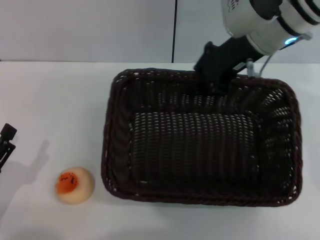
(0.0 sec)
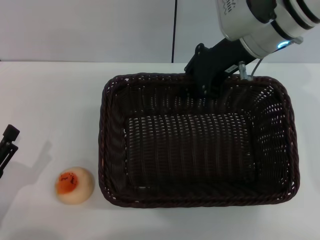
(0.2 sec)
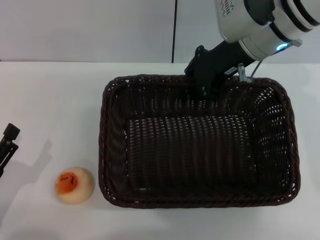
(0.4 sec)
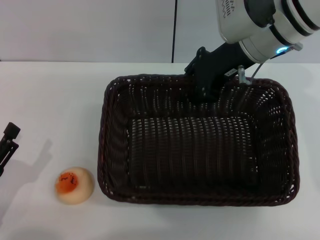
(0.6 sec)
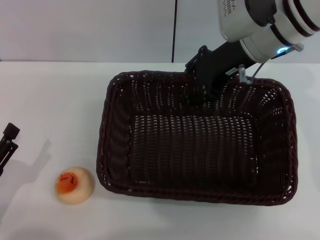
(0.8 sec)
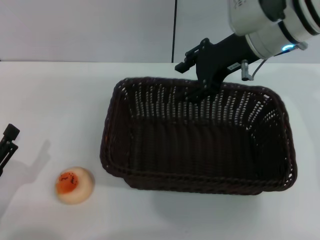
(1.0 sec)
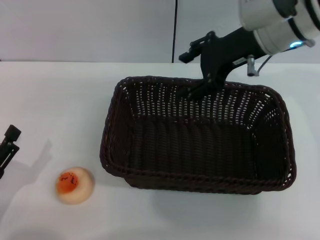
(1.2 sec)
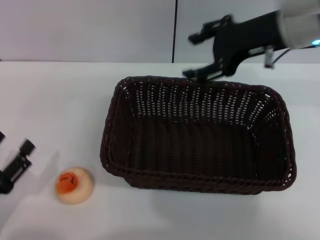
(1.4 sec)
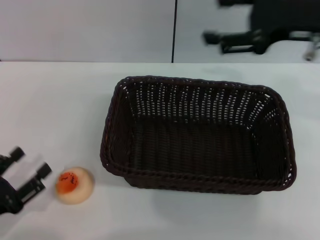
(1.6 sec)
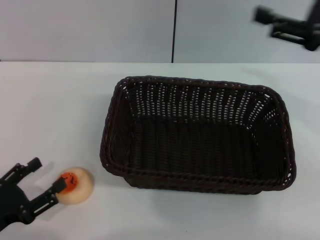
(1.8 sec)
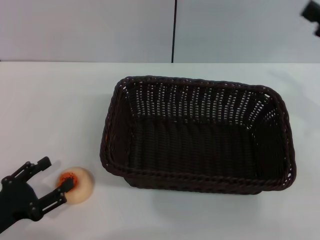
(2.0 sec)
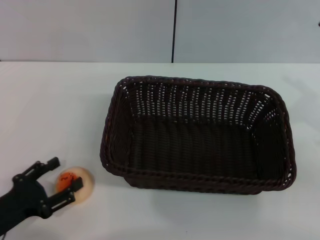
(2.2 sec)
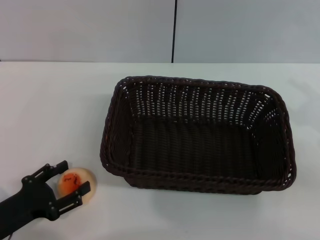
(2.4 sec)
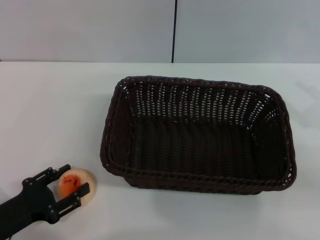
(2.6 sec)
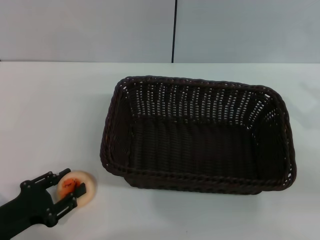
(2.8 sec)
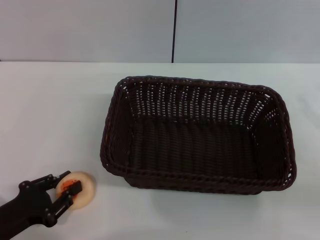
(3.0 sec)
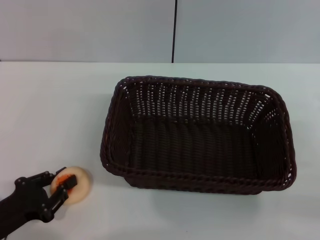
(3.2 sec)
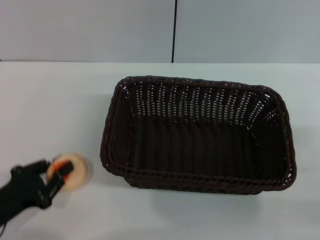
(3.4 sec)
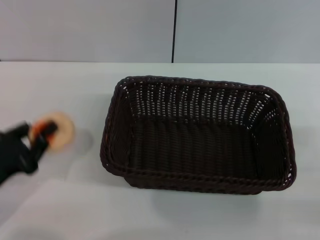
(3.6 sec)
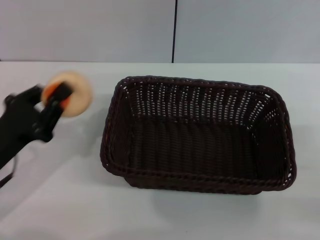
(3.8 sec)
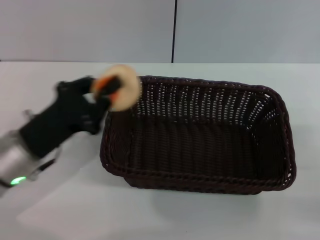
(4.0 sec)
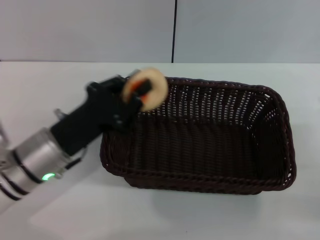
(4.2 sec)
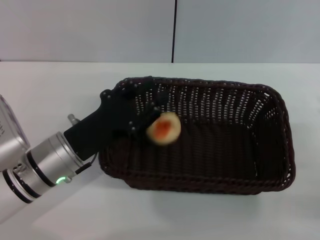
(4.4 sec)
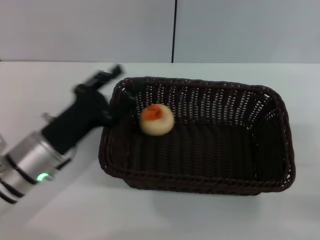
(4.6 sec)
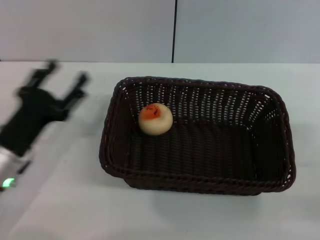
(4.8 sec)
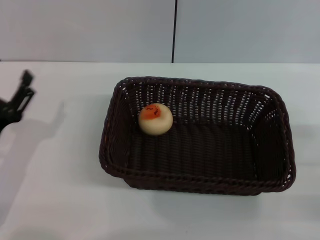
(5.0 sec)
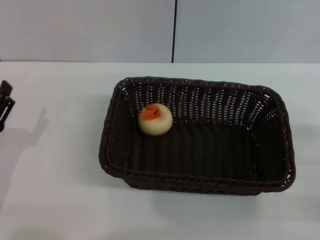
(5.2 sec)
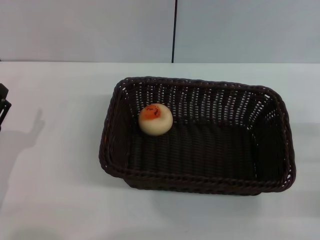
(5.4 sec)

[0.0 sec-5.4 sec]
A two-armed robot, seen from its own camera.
Step, 1.6 sec to 3.4 sec: Pick up the egg yolk pastry with the left gripper.
Step, 3.6 sec to 4.4 sec: Place the egg yolk pastry into the basket with the left gripper.
0.0 sec to 1.4 sec: The right gripper changes place by some 5 cm, and opens its fingers.
1.4 sec to 2.8 sec: The right gripper shifts roughly 25 cm to the right, backward and downward.
2.8 sec to 4.0 sec: The right gripper shifts some 5 cm downward. The left gripper goes about 15 cm forward, to the right and upward, and closes up.
4.0 sec to 5.4 sec: The left gripper is displaced to the left and backward by about 10 cm, and opens up.
